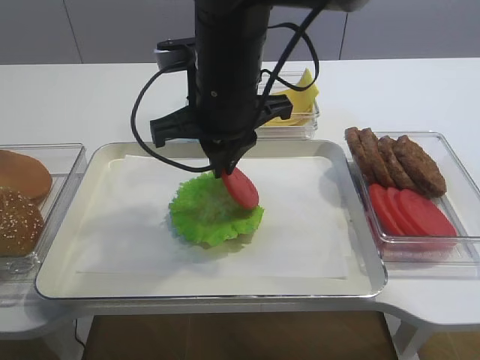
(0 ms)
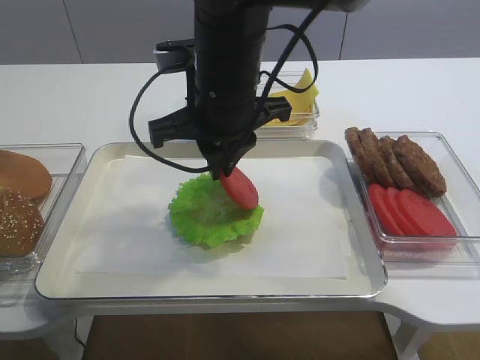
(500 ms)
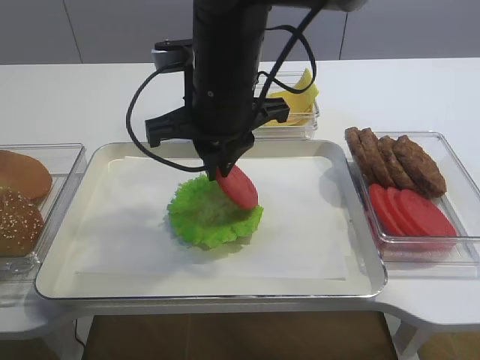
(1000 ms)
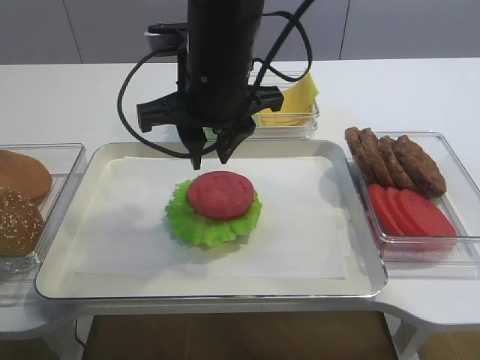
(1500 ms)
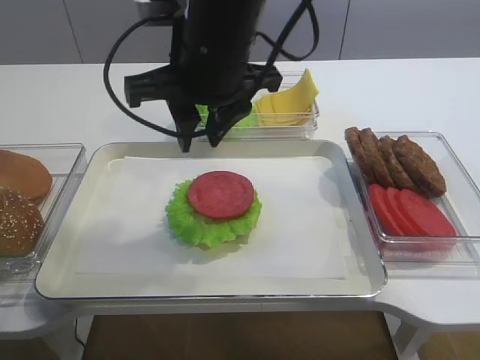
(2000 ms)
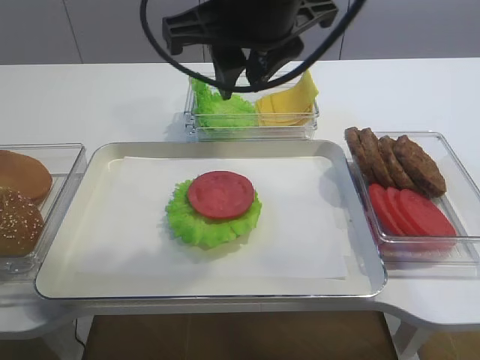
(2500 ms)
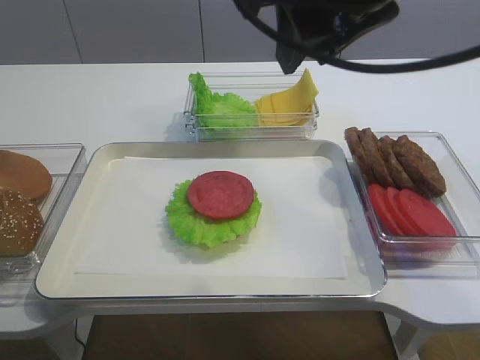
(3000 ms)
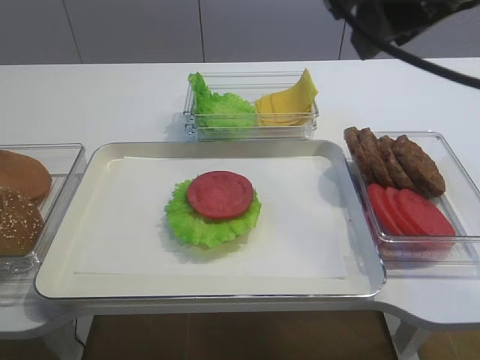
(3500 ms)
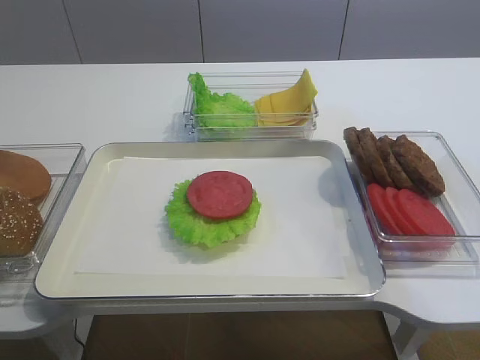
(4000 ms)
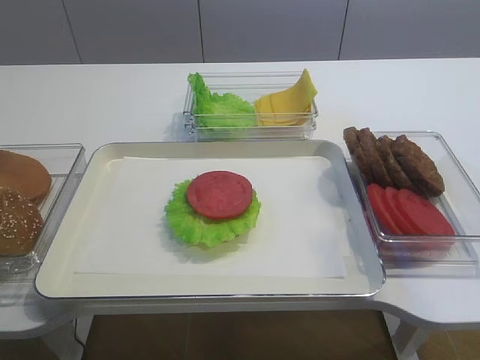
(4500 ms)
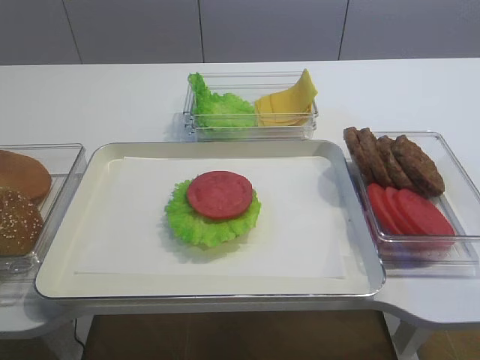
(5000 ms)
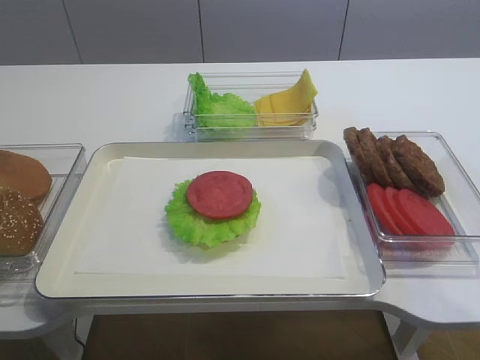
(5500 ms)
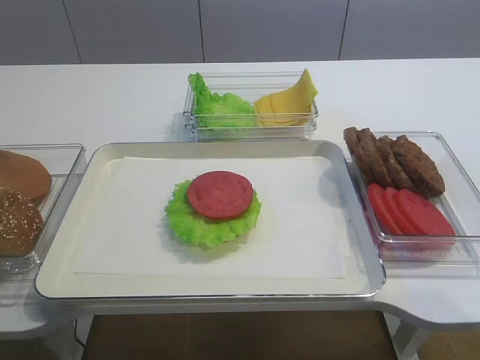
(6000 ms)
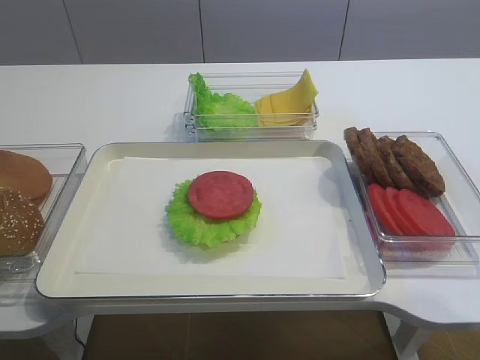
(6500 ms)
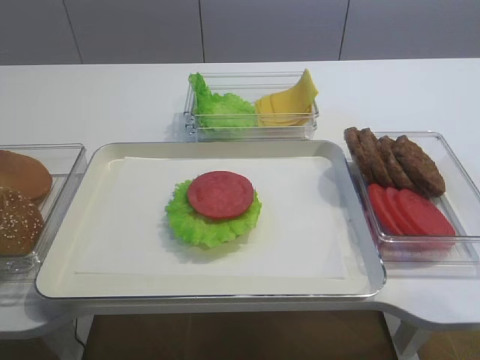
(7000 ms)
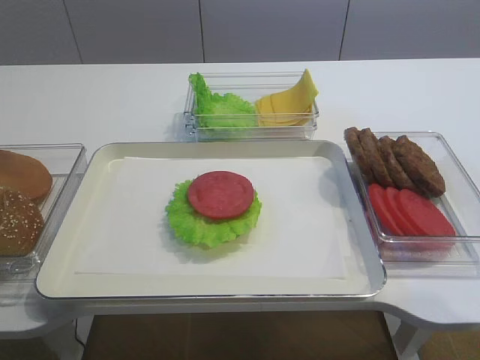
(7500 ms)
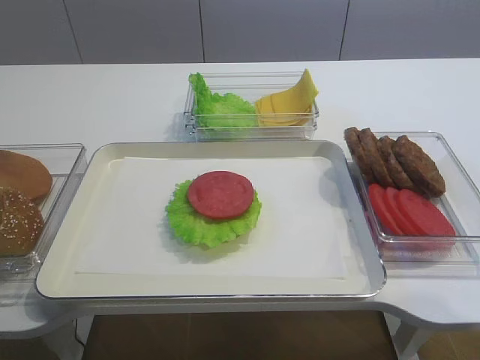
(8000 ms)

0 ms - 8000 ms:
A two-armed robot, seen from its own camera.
0 ms - 2000 ms: The right gripper opens up.
2000 ms - 4000 ms: The right gripper is displaced to the right, backward and upward by some 30 cm.
6000 ms - 8000 ms: The two grippers keep their place.

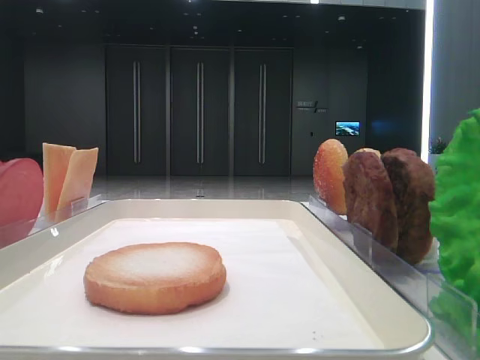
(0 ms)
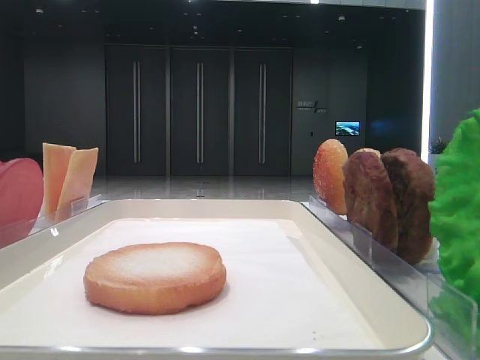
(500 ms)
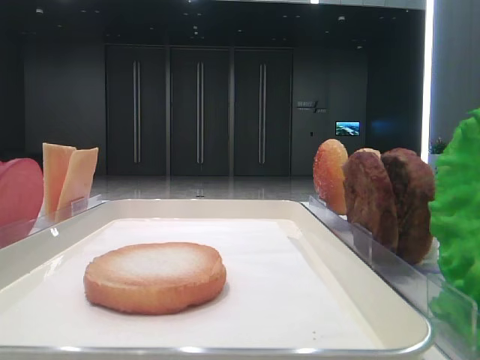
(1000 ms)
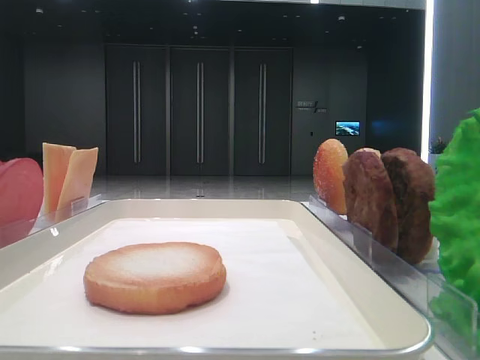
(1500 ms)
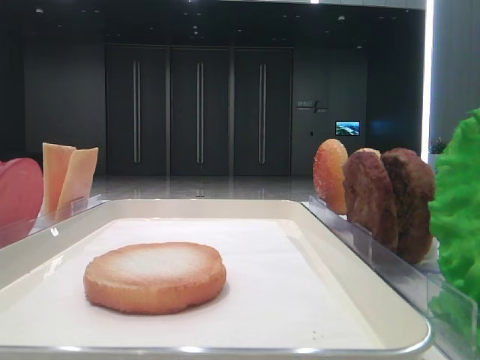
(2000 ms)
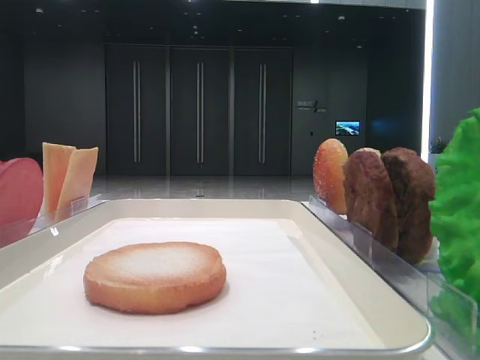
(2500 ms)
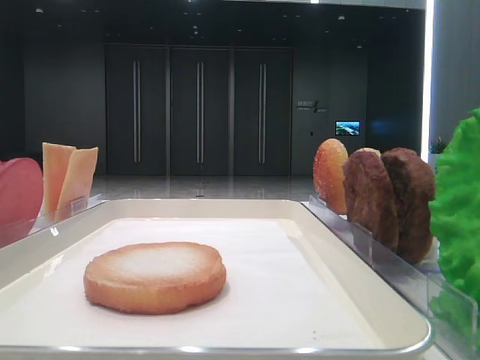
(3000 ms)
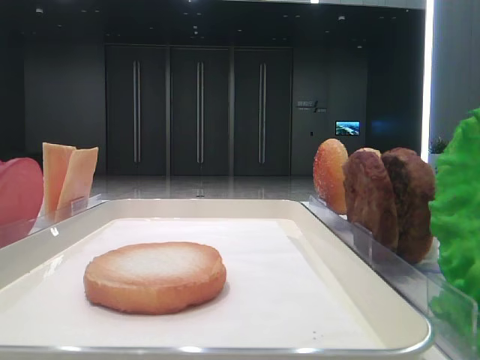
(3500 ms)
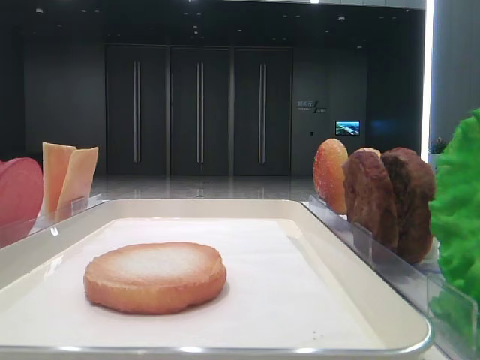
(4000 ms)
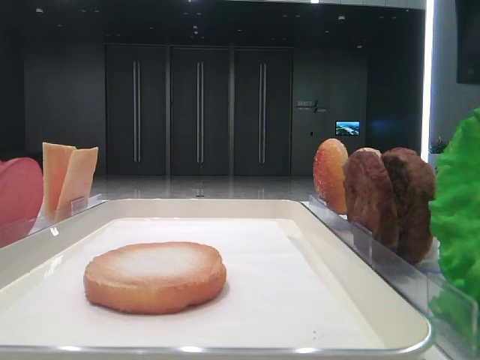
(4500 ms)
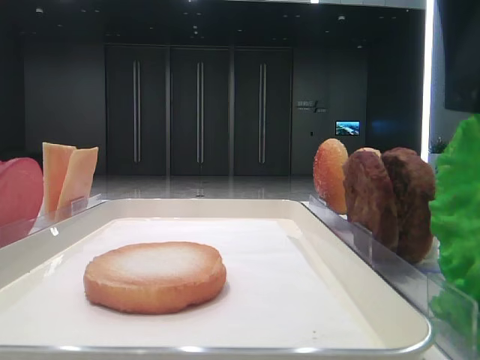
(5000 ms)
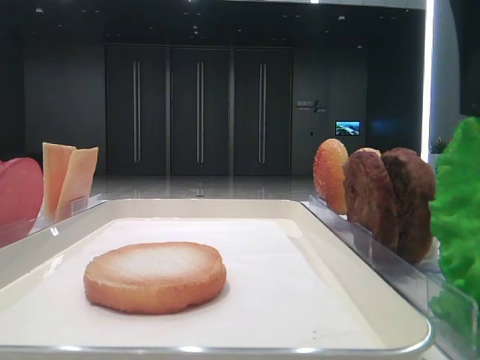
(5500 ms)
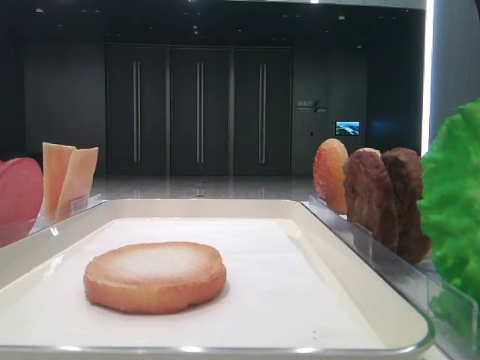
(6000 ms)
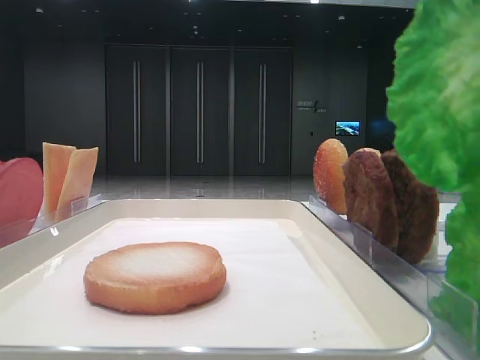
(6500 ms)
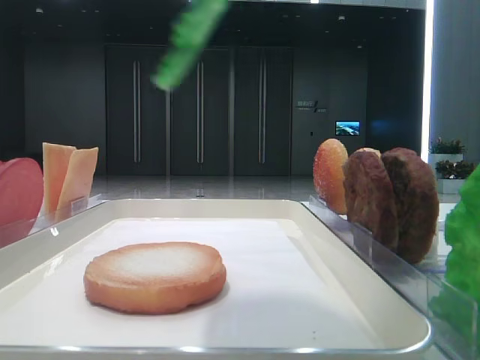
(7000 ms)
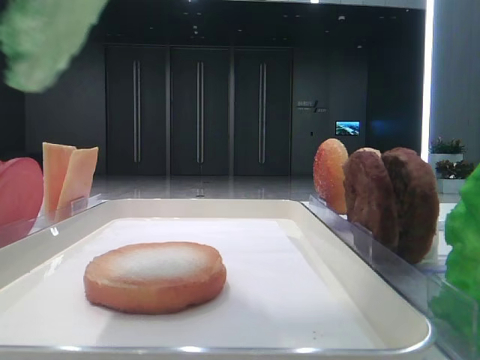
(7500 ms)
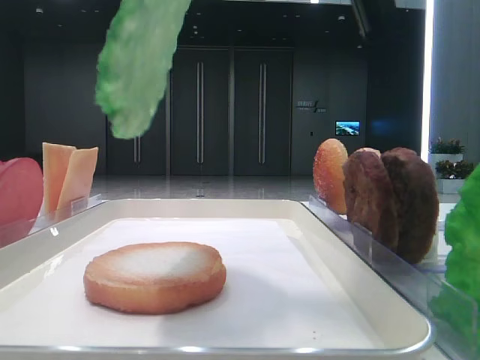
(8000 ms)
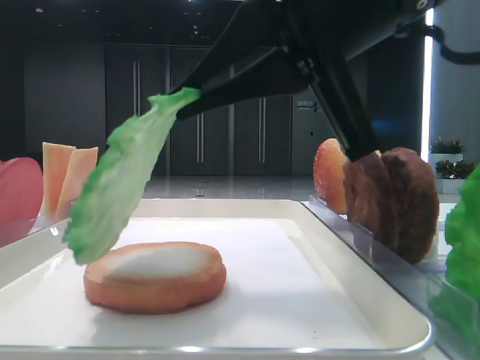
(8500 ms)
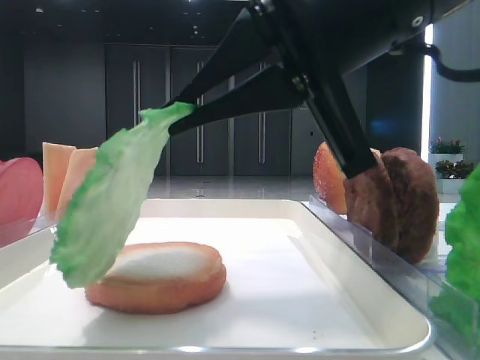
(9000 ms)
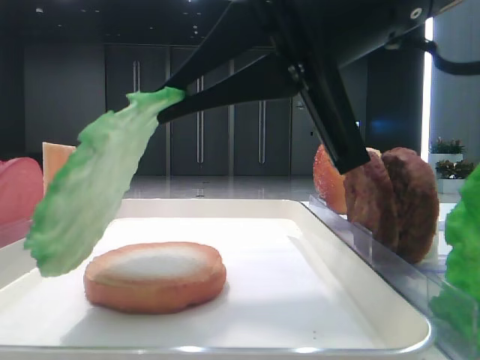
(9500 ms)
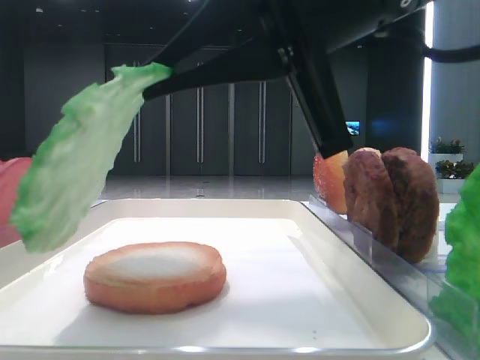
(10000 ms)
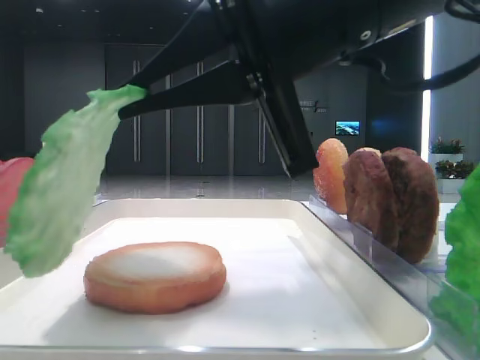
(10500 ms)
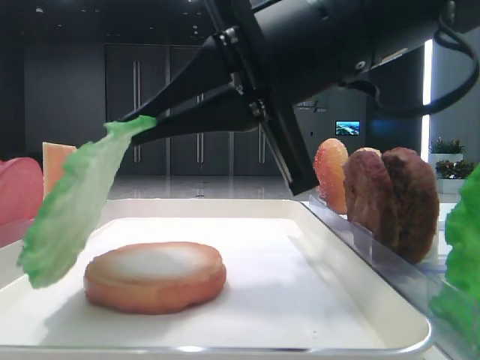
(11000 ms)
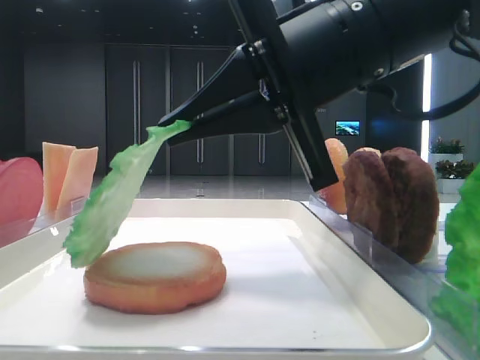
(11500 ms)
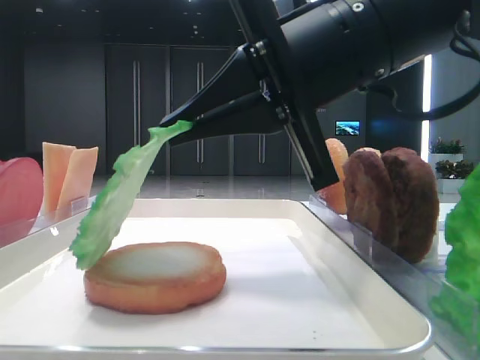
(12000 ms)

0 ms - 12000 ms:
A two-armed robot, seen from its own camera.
Step, 0 ms - 5500 ms: Grab the lettuce leaf with the right hand.
4000 ms - 6000 ms: The right gripper moves approximately 5 cm, and closes its fingers.
6000 ms - 8000 ms: The right gripper reaches about 10 cm upward, then returns.
8000 ms - 10000 ms: The left gripper closes its fingers. Meanwhile the right gripper heads downward, covering approximately 5 cm.
10000 ms - 12000 ms: The left gripper closes, while the right gripper shifts by approximately 5 cm.

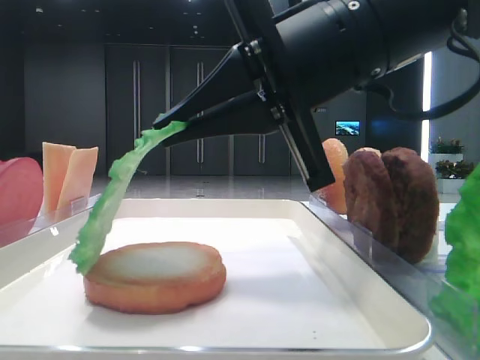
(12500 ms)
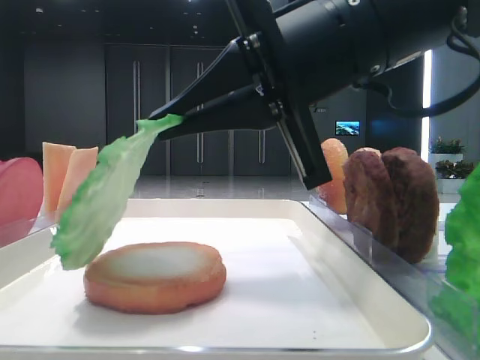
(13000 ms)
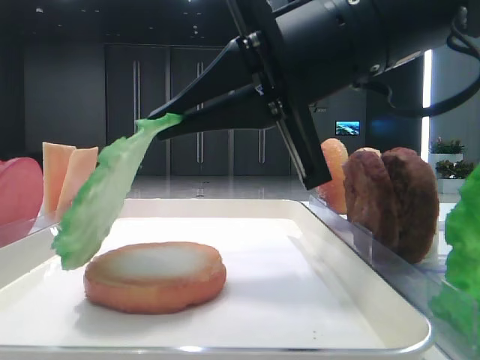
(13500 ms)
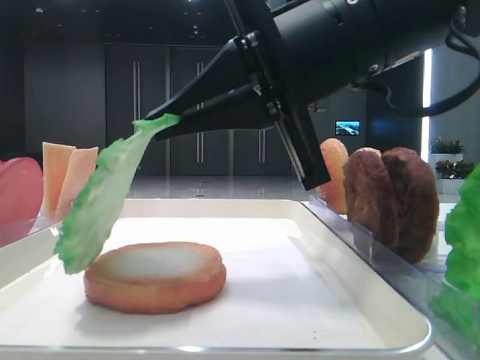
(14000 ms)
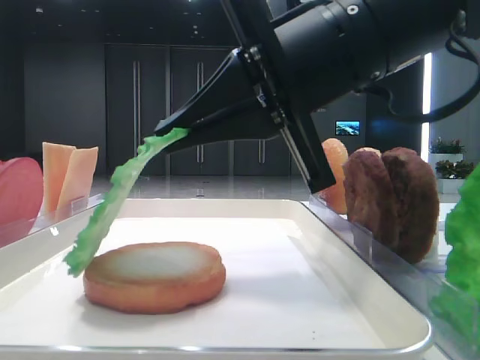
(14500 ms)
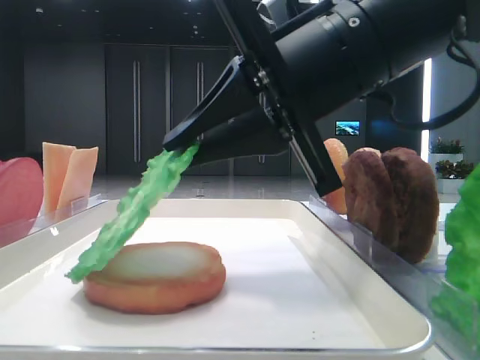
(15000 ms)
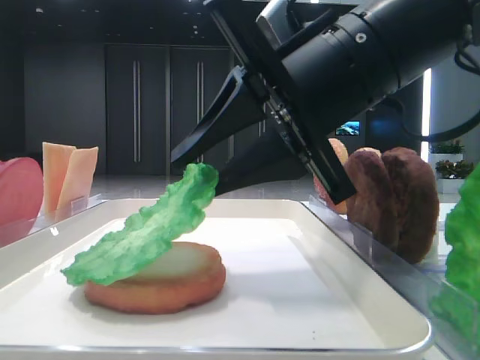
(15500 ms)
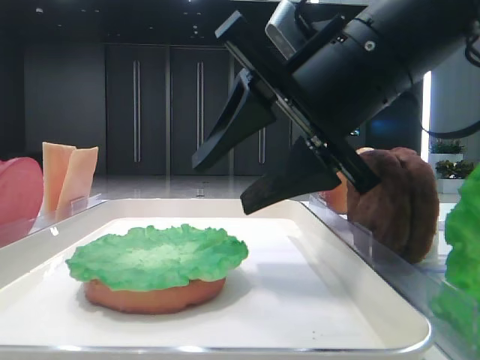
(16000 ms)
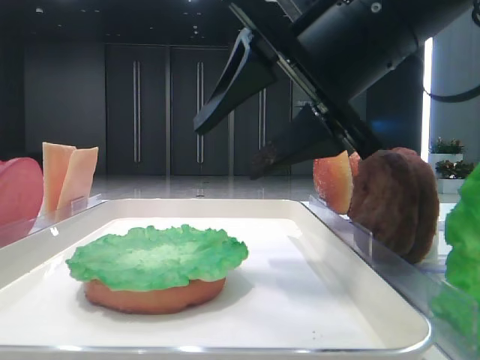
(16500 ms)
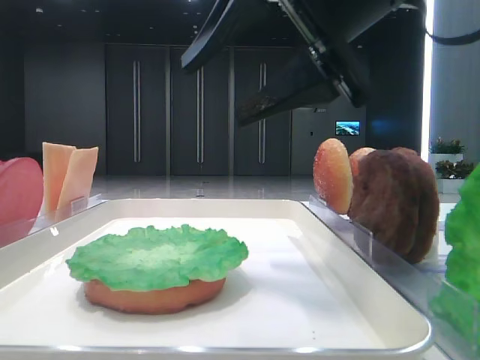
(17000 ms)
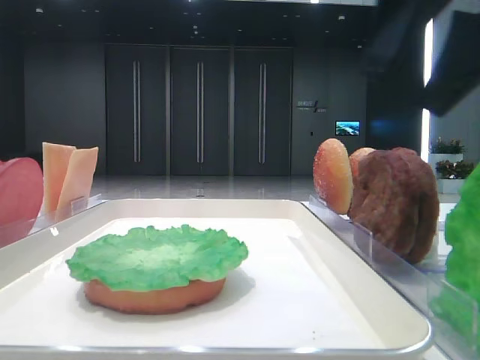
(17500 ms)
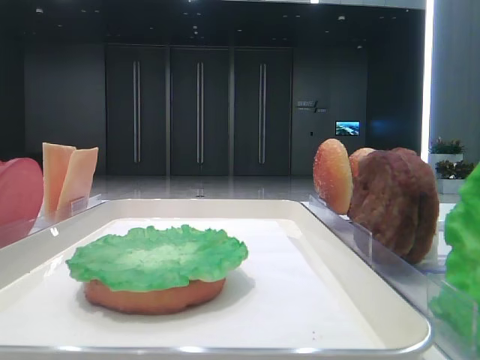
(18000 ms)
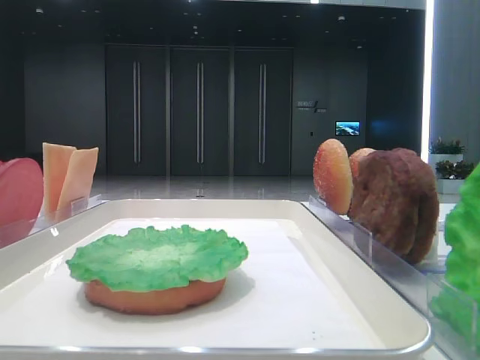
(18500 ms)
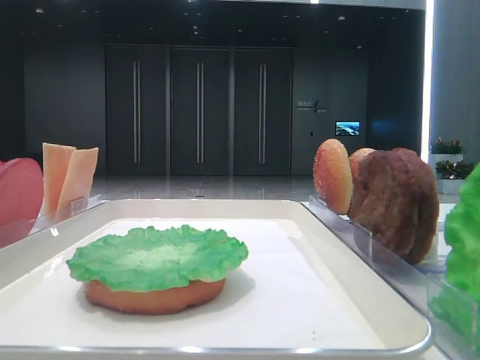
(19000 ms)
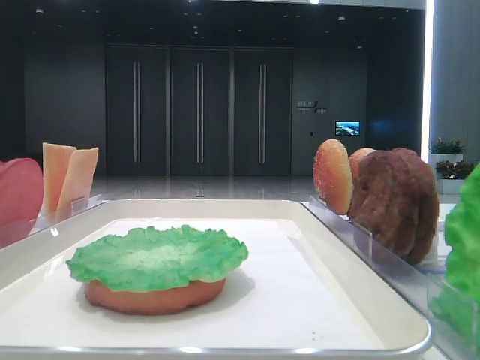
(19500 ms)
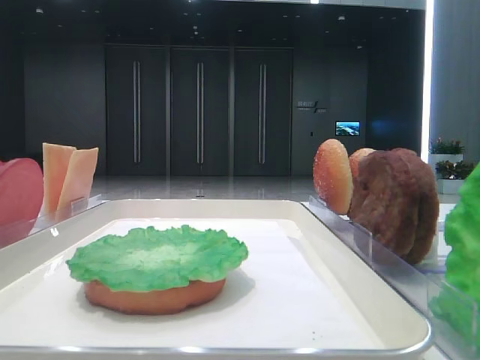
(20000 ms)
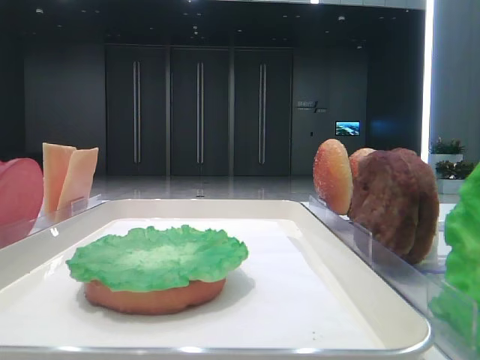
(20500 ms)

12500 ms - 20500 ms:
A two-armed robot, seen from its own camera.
Step, 12500 ms - 15500 ms: Place the lettuce leaf on the bottom bread with the right hand.
12500 ms - 14500 ms: Neither gripper changes place.
14500 ms - 16500 ms: The right gripper opens up.
16500 ms - 18500 ms: The right gripper goes some 30 cm to the right, backward and upward.
